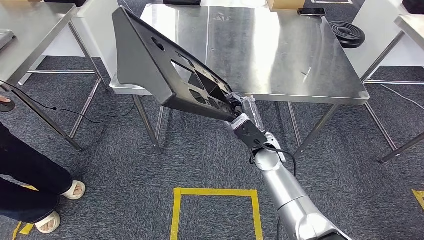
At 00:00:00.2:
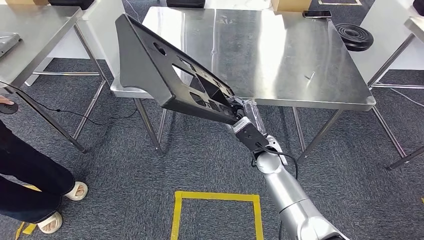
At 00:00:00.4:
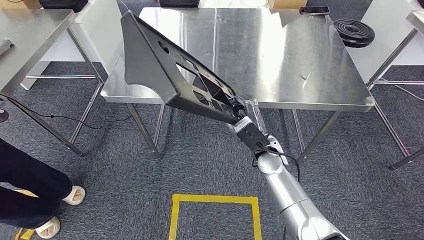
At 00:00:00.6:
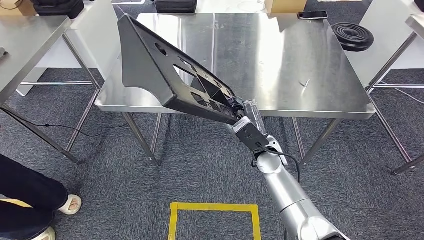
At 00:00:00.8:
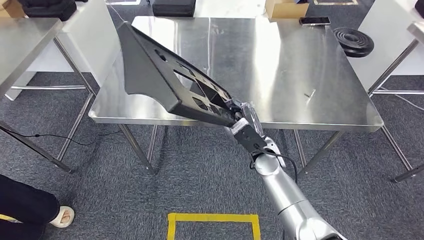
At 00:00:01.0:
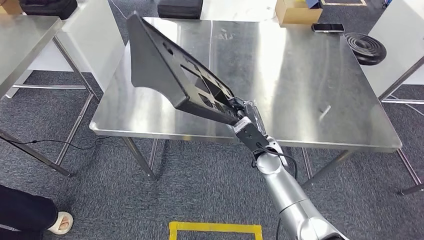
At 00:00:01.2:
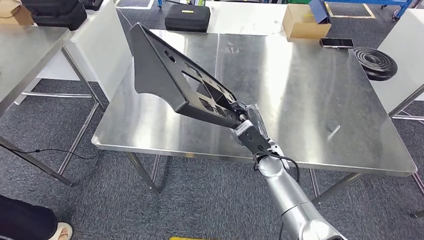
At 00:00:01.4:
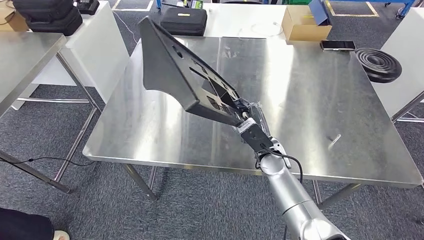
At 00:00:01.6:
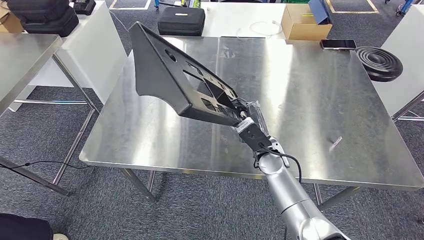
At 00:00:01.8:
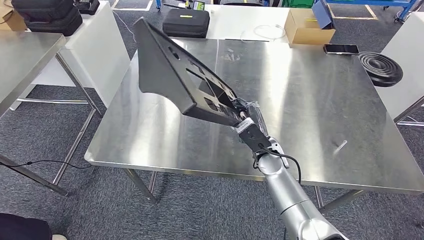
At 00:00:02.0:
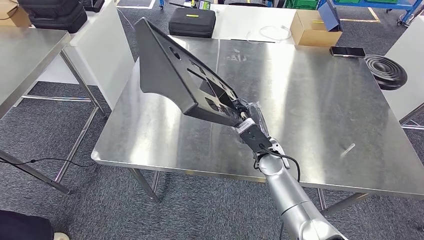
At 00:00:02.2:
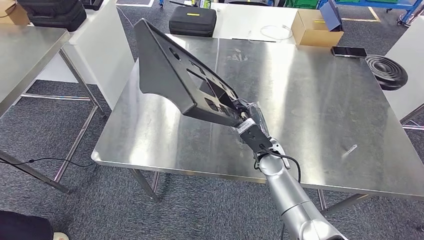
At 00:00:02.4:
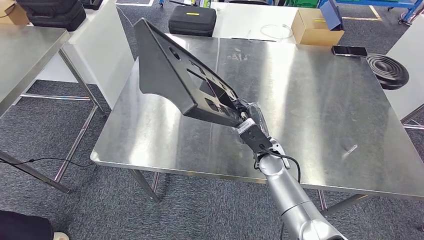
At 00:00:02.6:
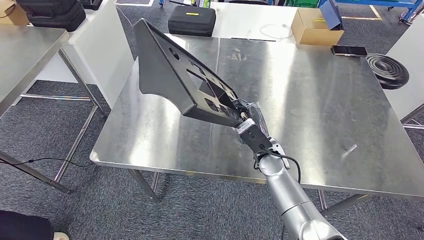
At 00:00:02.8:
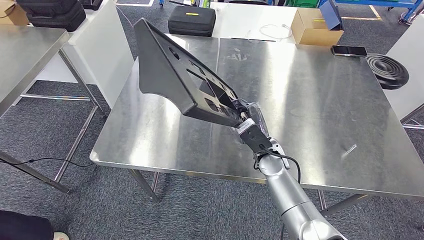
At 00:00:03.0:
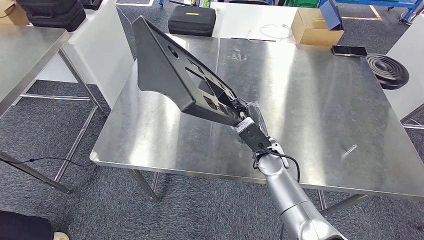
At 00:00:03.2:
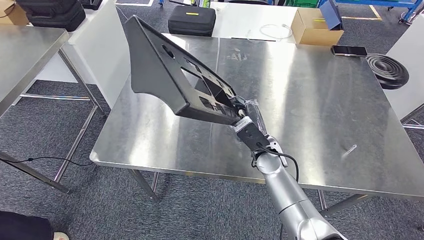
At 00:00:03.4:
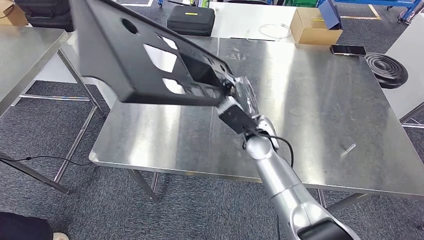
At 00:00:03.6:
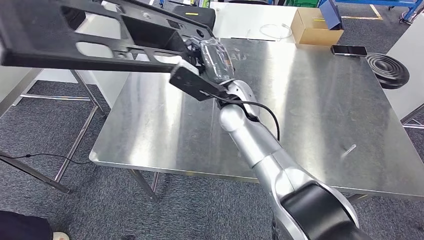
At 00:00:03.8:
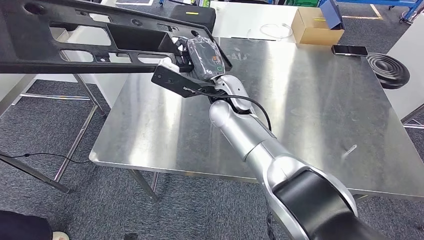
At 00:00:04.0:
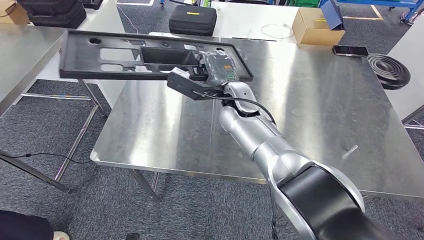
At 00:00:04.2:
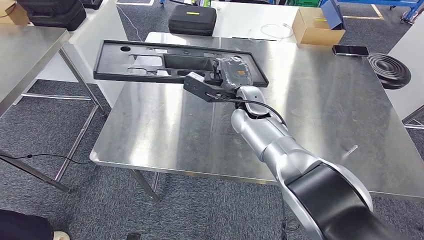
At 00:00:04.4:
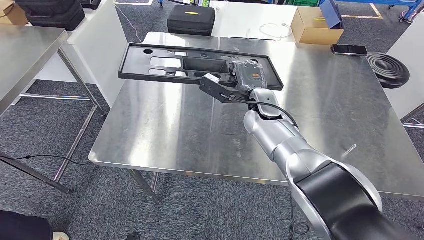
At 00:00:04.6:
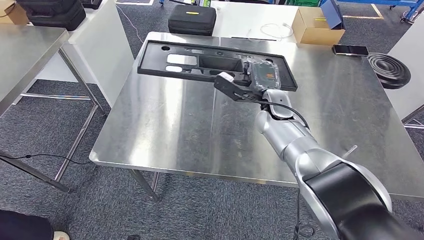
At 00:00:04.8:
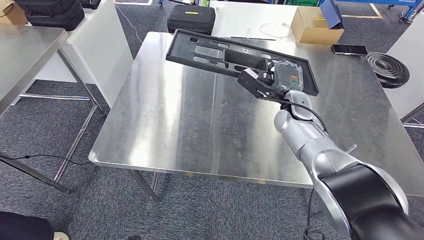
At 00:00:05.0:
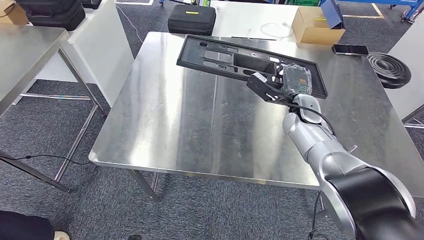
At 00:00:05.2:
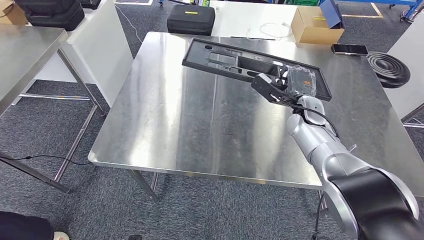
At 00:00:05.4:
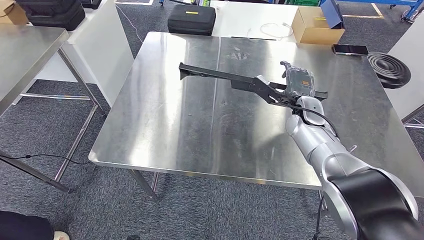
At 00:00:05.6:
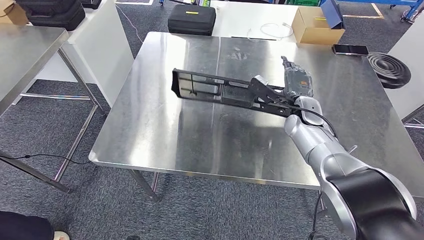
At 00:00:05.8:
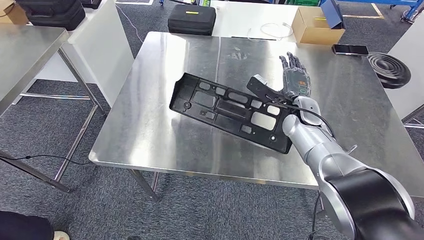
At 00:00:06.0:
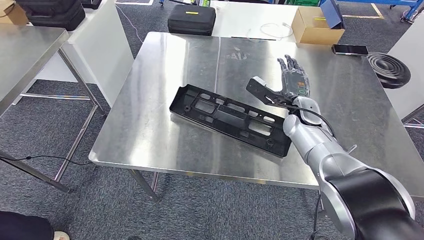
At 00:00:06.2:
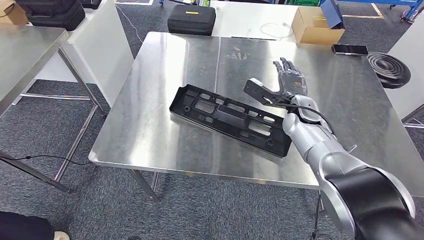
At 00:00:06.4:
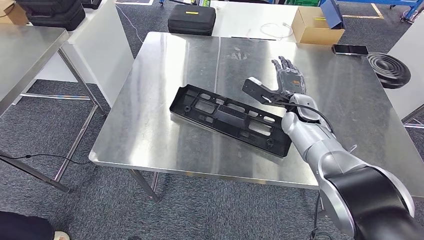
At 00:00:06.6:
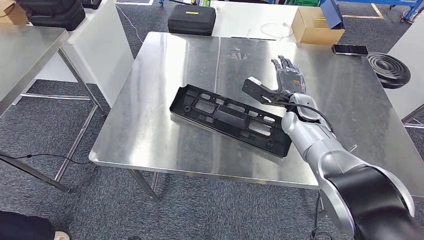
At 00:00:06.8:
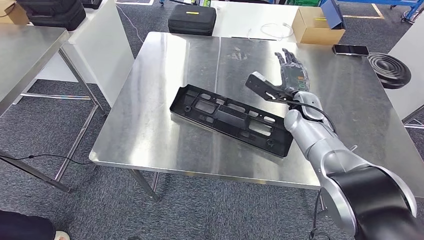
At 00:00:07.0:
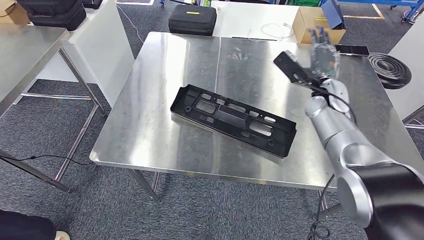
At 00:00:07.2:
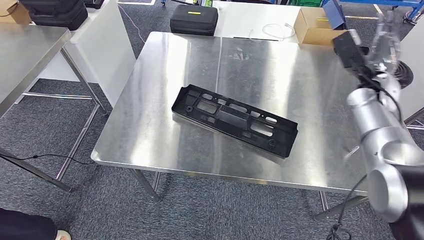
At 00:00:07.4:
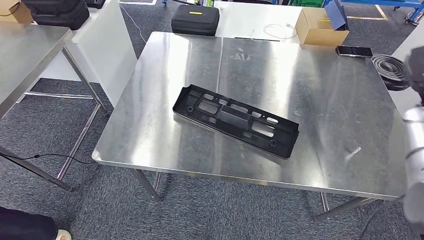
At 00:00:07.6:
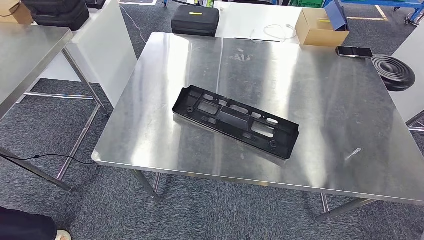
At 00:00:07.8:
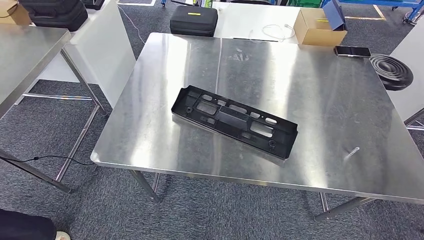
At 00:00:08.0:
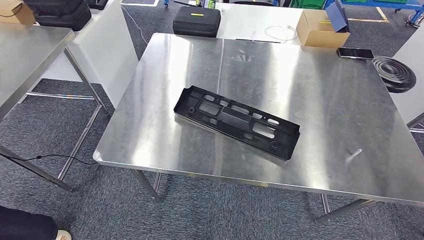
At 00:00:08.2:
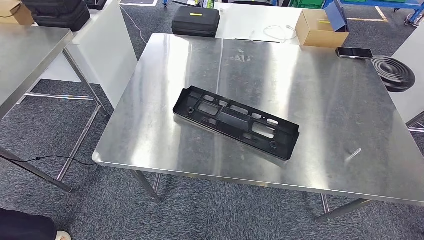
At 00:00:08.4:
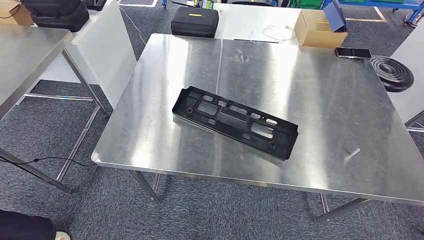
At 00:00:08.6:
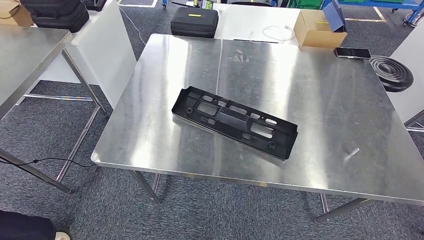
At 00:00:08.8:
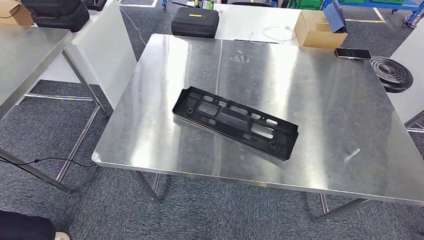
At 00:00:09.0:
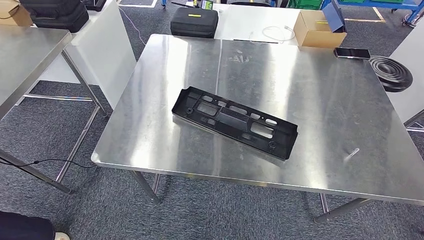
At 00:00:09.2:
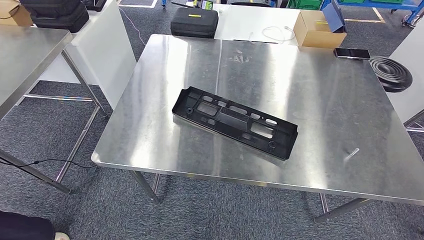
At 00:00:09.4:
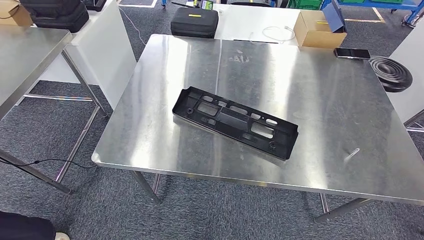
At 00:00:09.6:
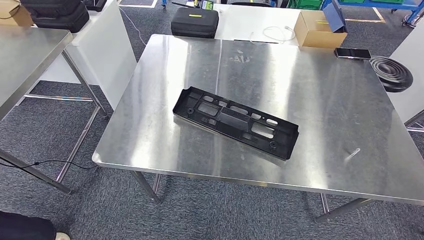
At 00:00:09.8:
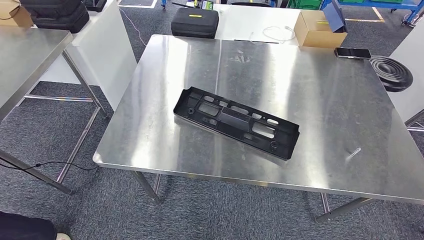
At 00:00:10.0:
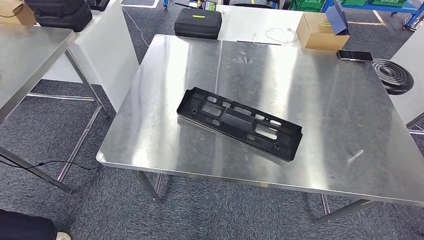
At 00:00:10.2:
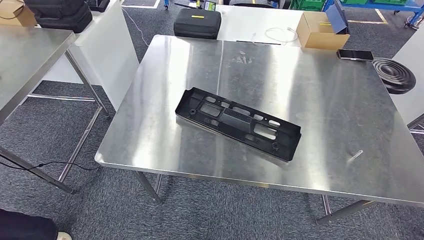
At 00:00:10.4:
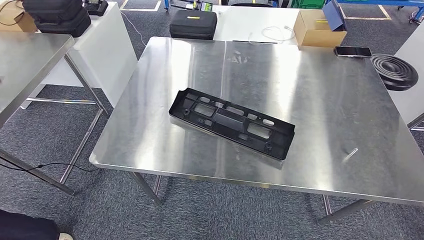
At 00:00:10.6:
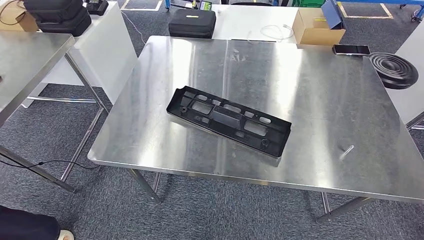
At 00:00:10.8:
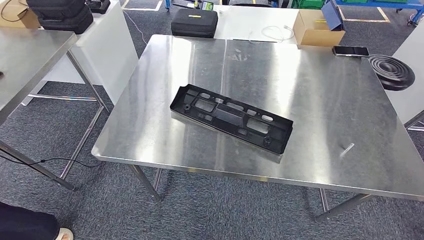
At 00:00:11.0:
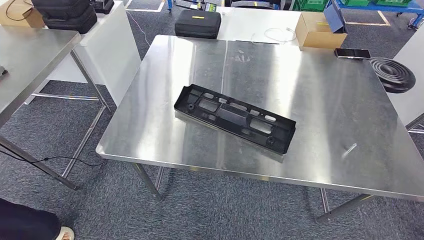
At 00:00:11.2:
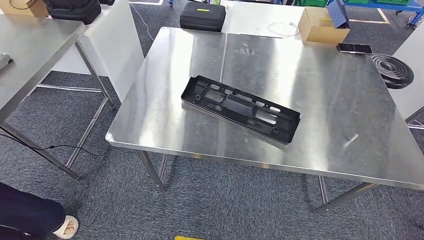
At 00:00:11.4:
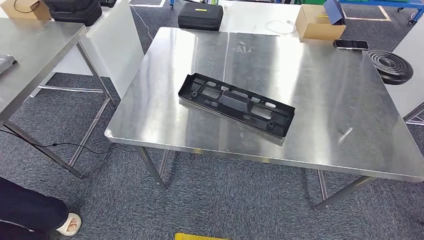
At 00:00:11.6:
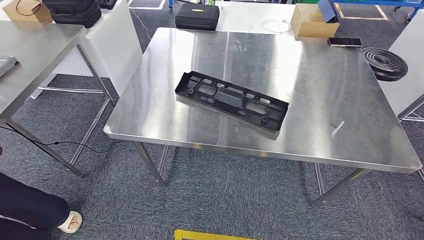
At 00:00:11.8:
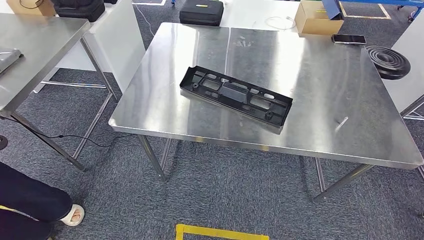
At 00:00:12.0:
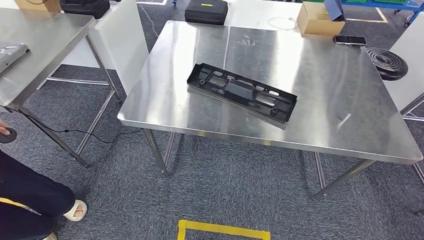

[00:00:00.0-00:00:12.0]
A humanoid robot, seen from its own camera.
Step, 00:00:00.0 to 00:00:06.2: Insert the large material into the corresponding slot on the workbench.
00:00:03.0 to 00:00:04.4: The right hand moves upward and forward, approximately 15 cm.
00:00:07.6 to 00:00:09.0: The right hand heads downward, to the left and backward, covering approximately 50 cm.
00:00:09.0 to 00:00:10.4: There are only small adjustments of the hands.

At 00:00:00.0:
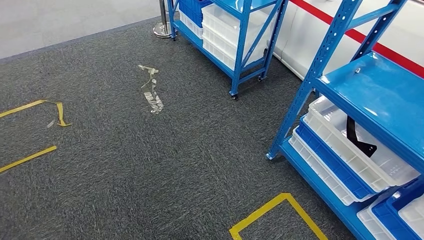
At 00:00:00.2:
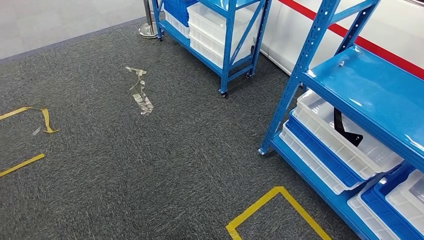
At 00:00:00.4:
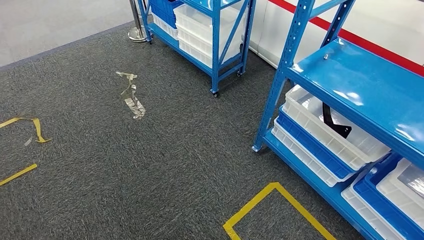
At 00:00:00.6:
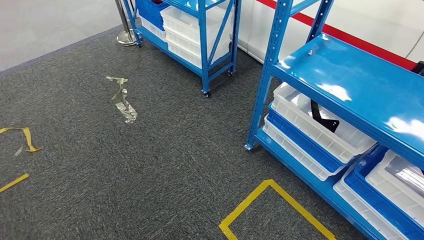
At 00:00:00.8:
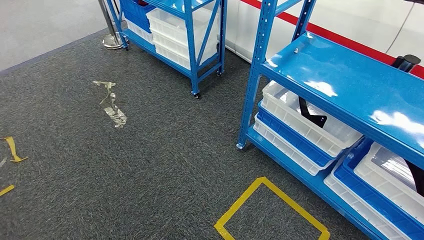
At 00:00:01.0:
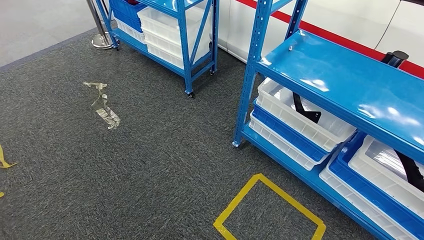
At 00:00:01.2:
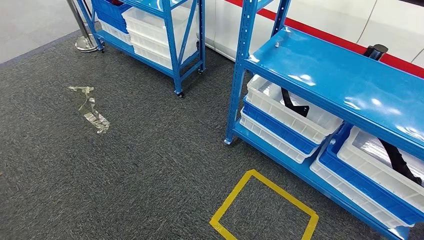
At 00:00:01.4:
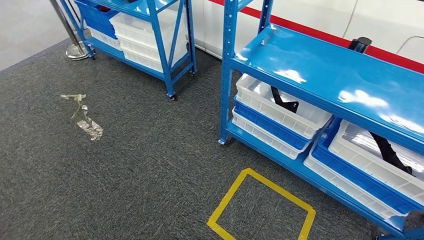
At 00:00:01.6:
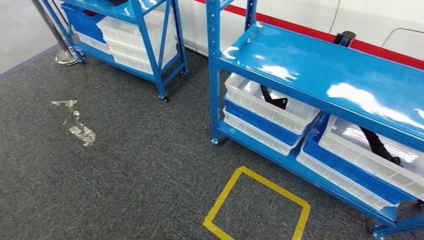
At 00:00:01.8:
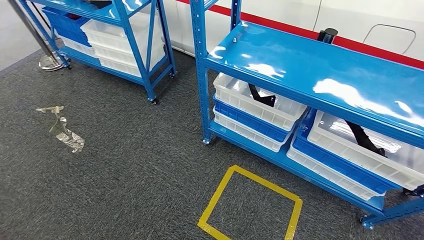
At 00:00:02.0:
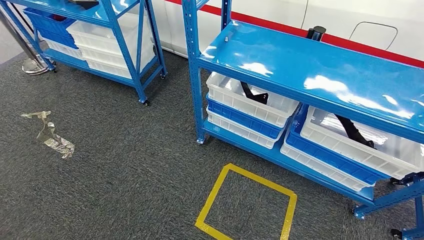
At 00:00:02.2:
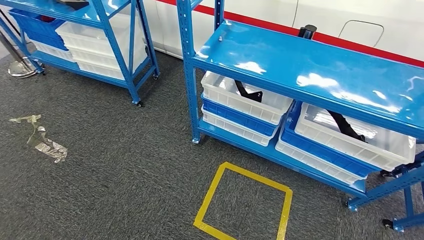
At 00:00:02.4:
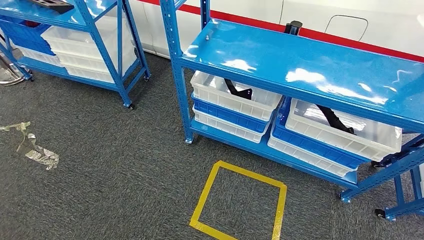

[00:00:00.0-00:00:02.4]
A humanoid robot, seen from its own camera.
Step, 00:00:00.0 to 00:00:02.4: Move to the initial position of the shelf.
